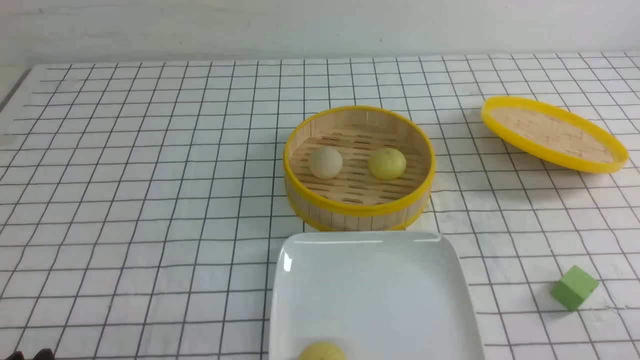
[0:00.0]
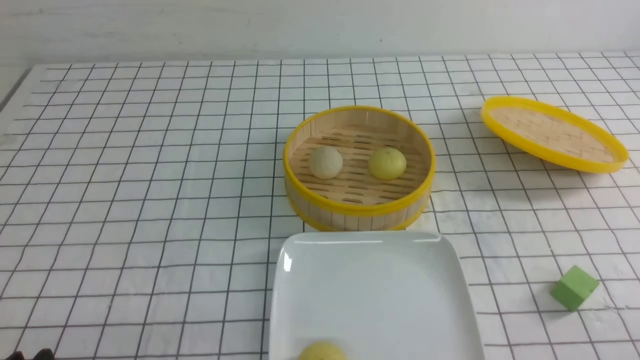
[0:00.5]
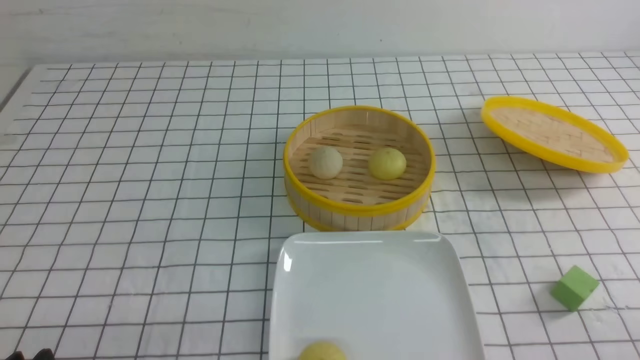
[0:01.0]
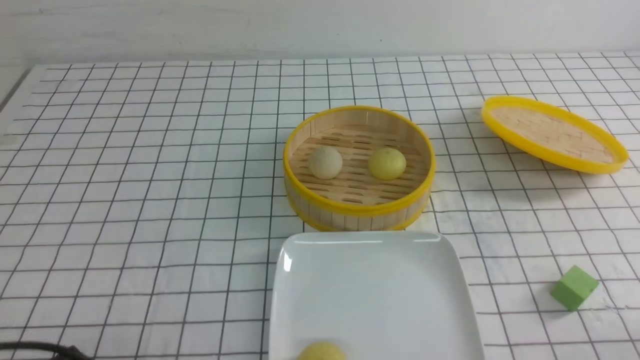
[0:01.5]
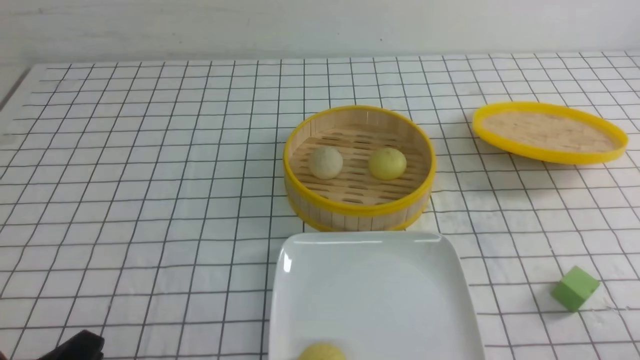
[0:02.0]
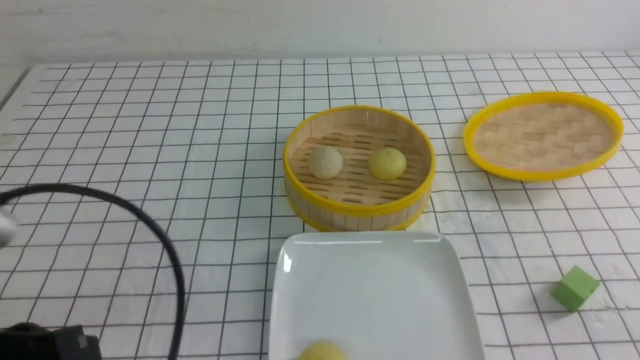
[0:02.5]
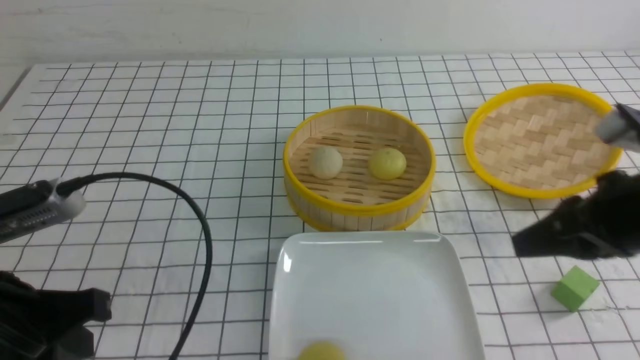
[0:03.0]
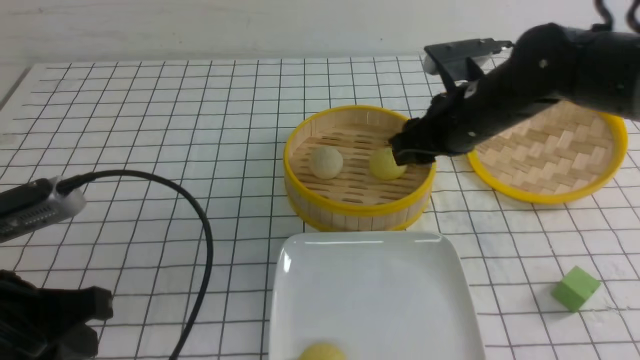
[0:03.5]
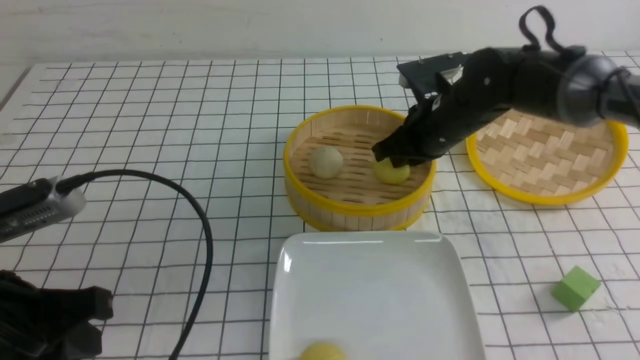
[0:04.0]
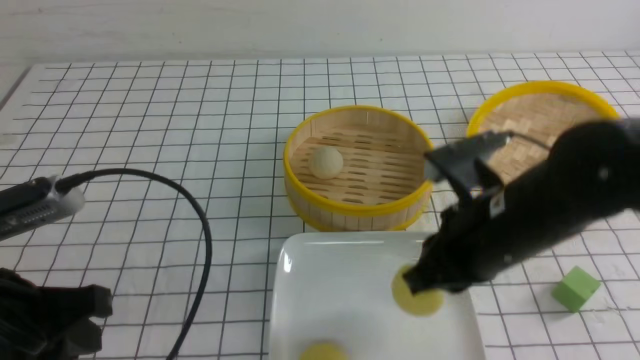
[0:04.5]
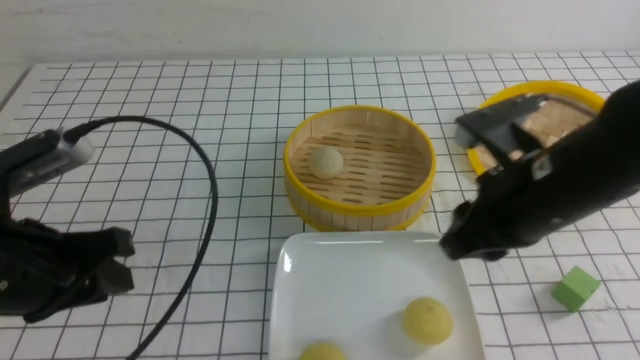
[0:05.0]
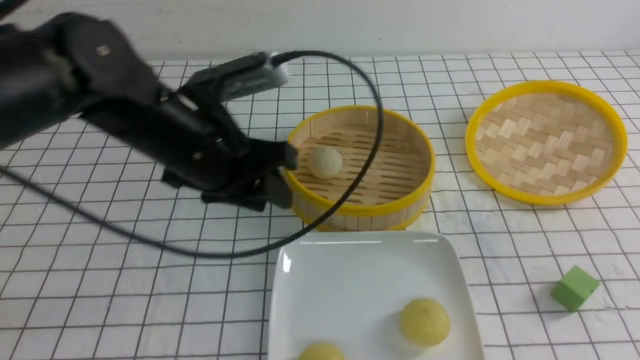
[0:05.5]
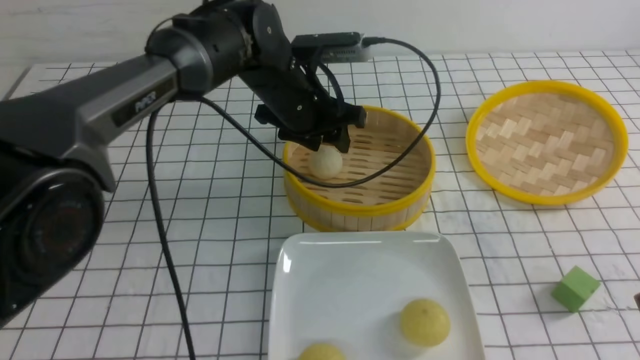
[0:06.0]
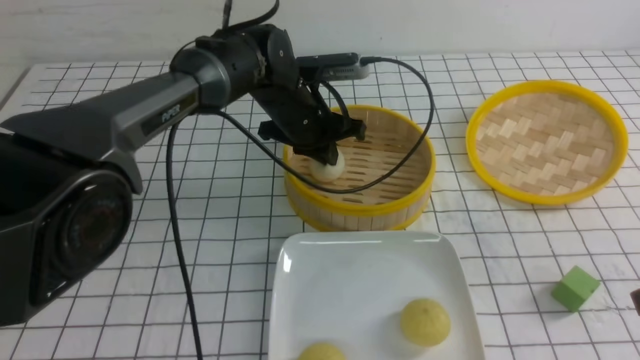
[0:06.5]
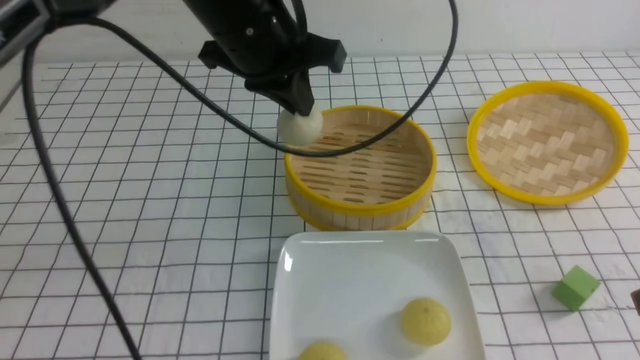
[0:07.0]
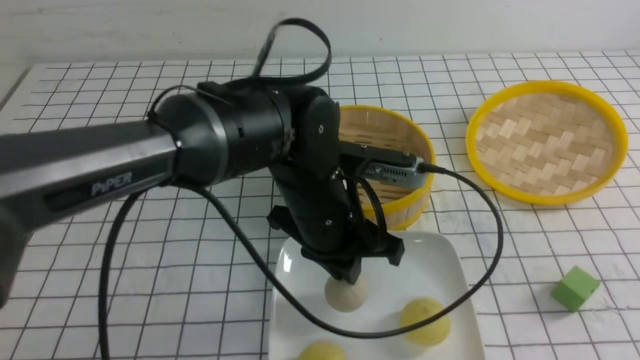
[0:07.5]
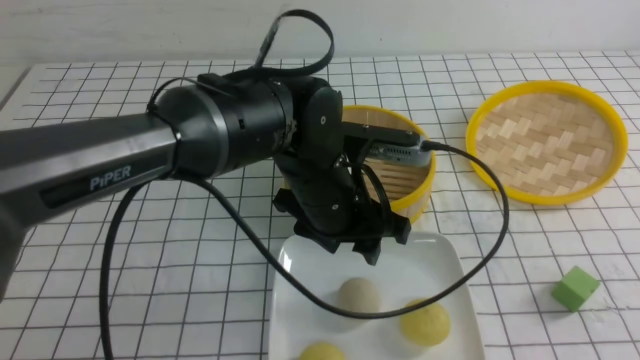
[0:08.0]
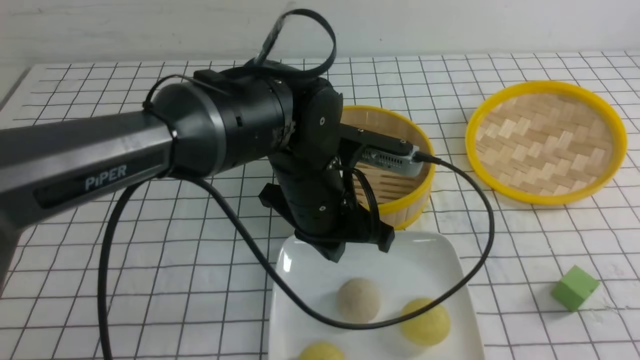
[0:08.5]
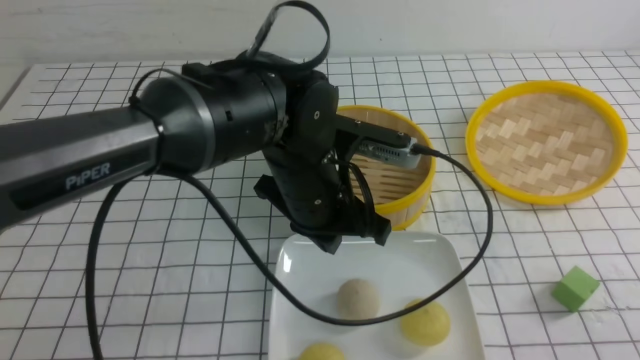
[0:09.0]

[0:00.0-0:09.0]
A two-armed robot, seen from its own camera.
Step, 0:00.0 to 0:03.5: use the right arm to grab the steamed stuffed bun that is closest to it.
Step, 0:04.0 to 0:04.5: use the right arm to put the steamed stuffed bun into the plate.
Step, 0:05.0 to 0:06.0: use the left arm to grab the steamed stuffed bun that is closest to it.
Step, 0:06.5 to 0:07.5: use the left arm to put the steamed stuffed bun into the plate.
0:00.0 to 0:02.0: The left gripper ends up roughly 5 cm from where it was.
0:02.0 to 0:04.5: The right gripper goes about 25 cm forward and to the left, and closes and opens again. The left gripper moves forward and upward, some 10 cm.
0:04.5 to 0:07.0: The left gripper travels forward and to the right by some 25 cm, and closes up; the right gripper travels to the right and backward by about 20 cm, and closes up.
0:07.0 to 0:09.0: The left gripper travels downward and backward by about 10 cm, and opens, then closes again; the right gripper heads backward and downward, covering some 10 cm.

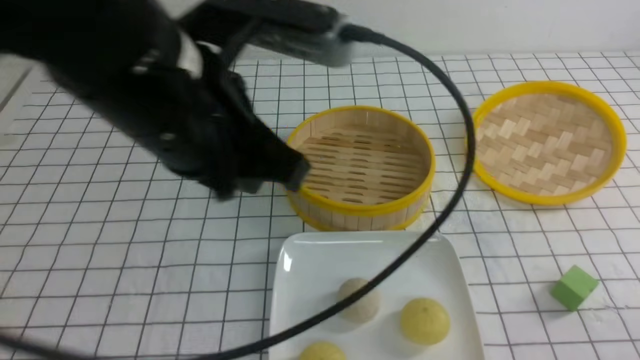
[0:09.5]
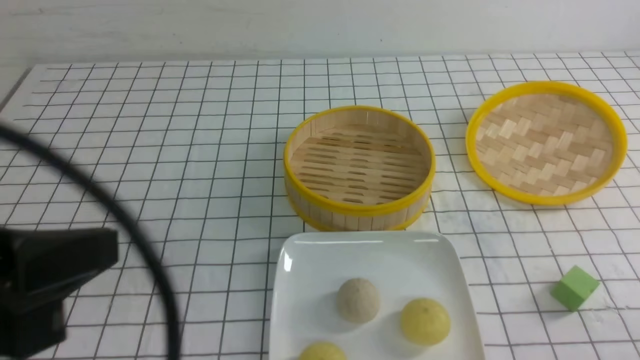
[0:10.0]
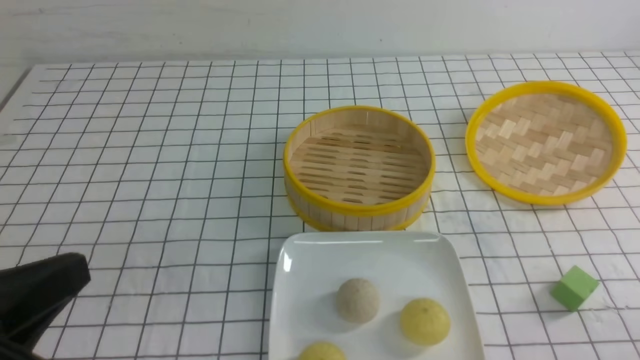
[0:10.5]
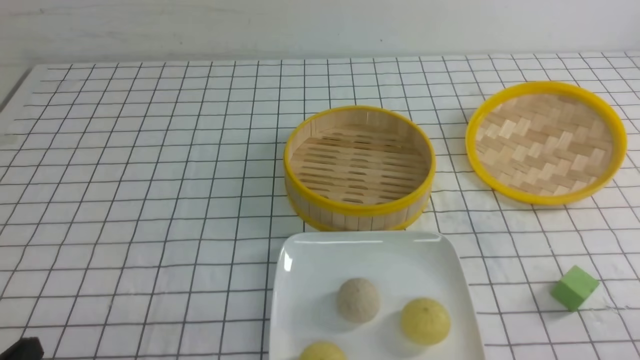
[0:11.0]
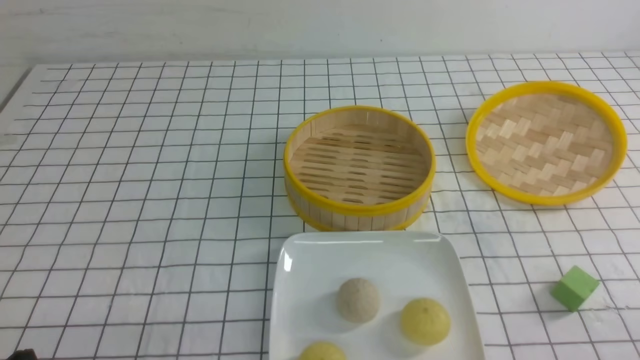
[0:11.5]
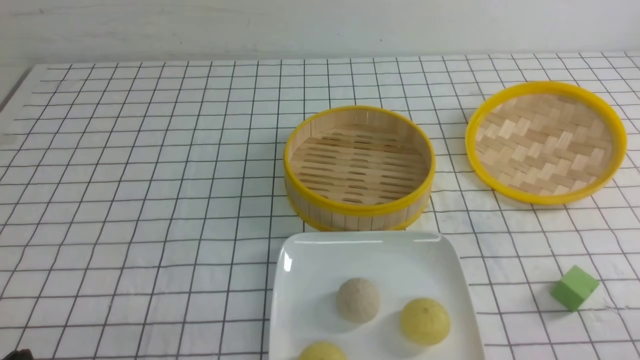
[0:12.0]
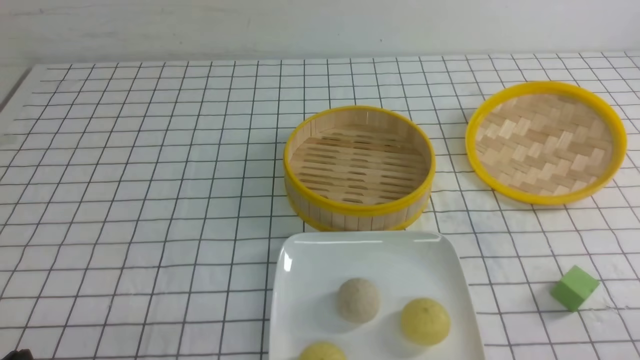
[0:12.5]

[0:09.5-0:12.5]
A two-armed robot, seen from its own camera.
0:09.5 to 0:11.0: The left gripper shifts some 30 cm downward, to the left and backward.

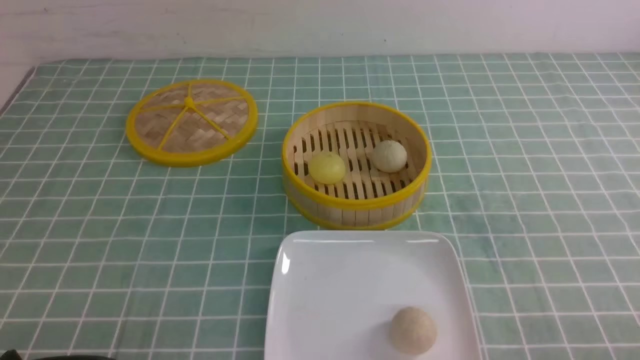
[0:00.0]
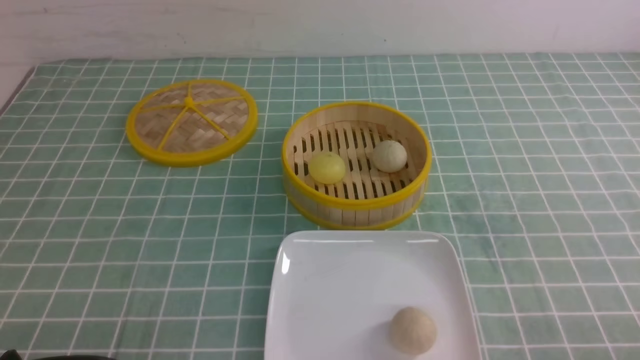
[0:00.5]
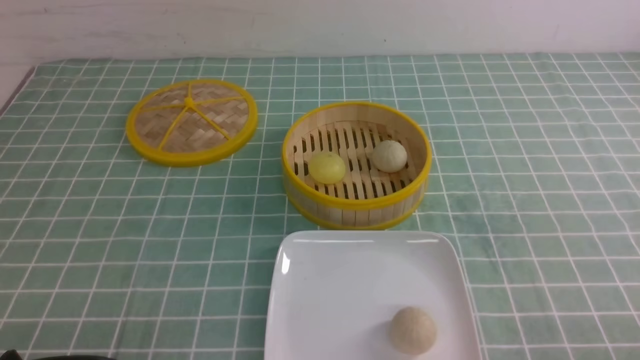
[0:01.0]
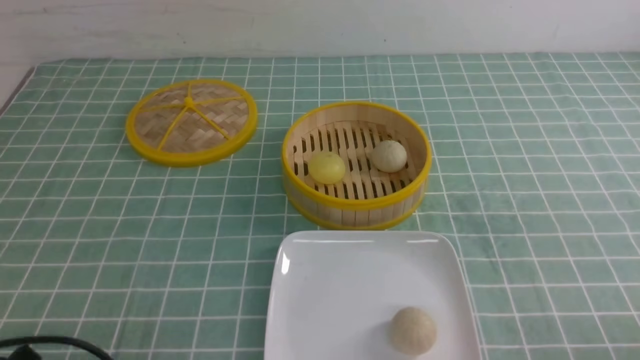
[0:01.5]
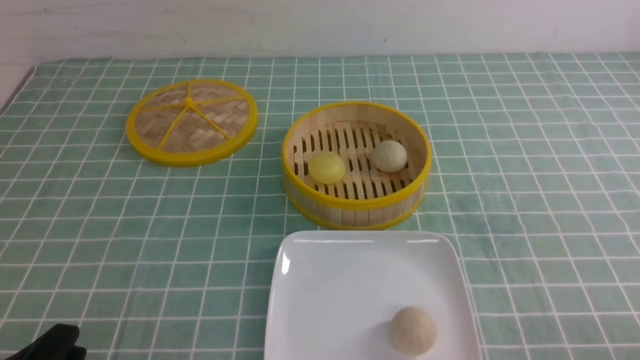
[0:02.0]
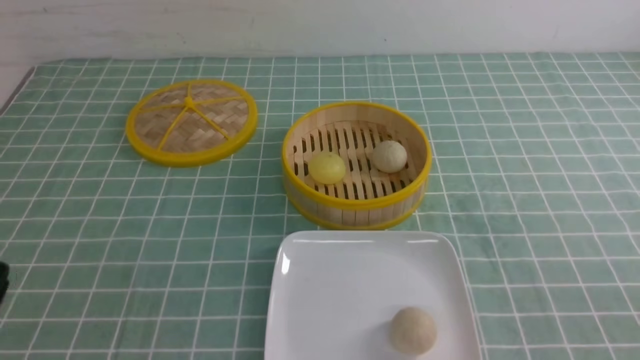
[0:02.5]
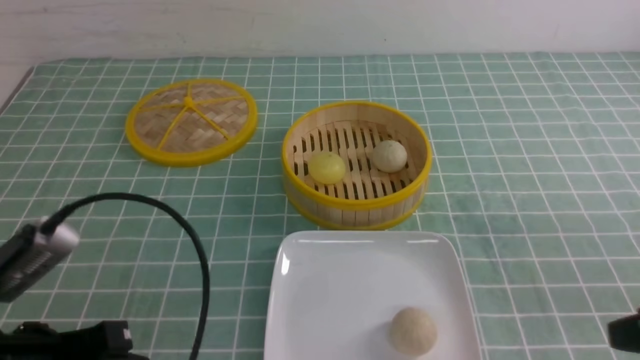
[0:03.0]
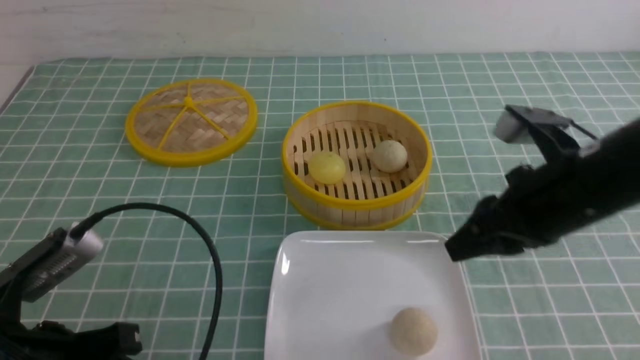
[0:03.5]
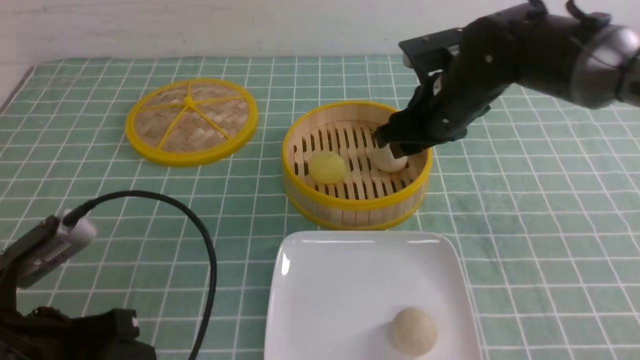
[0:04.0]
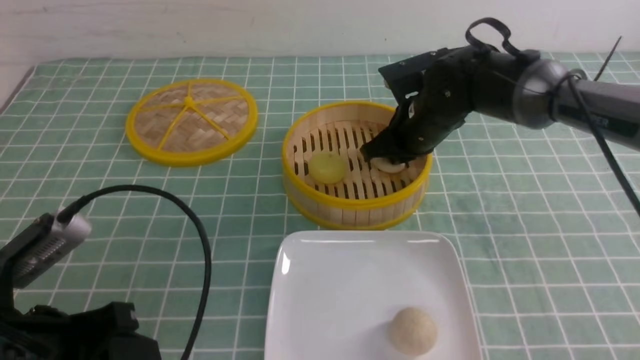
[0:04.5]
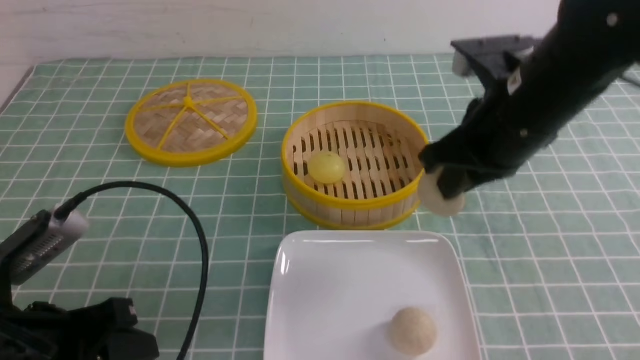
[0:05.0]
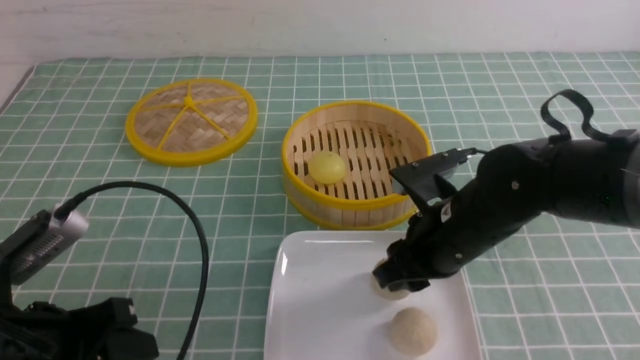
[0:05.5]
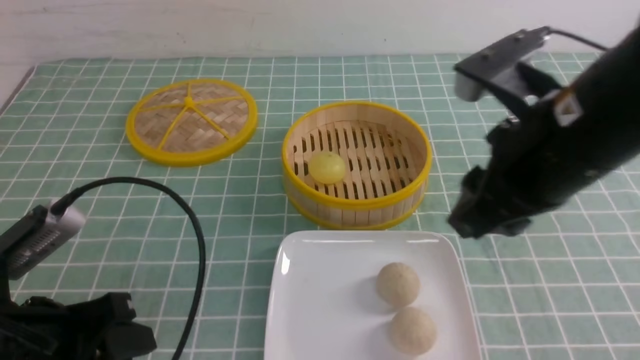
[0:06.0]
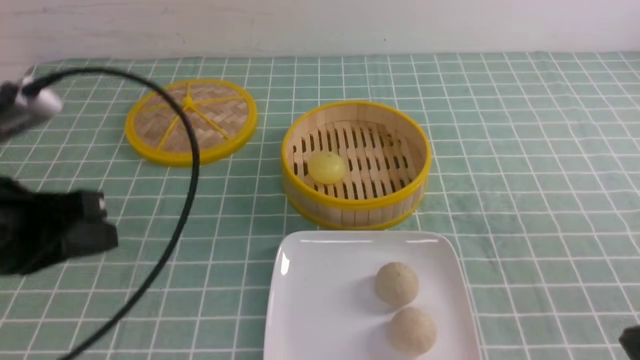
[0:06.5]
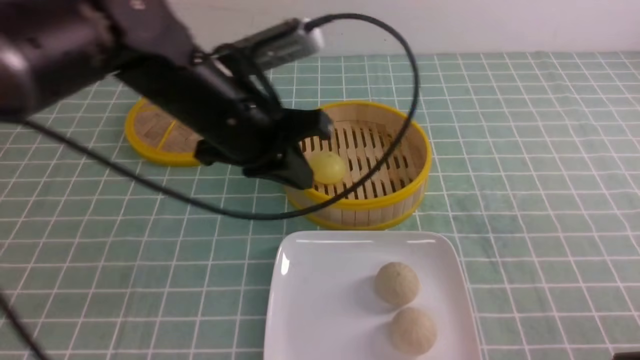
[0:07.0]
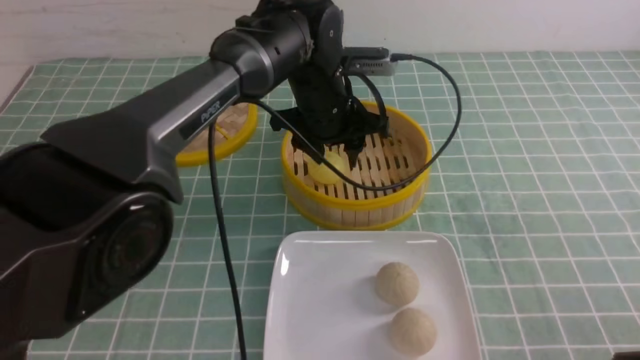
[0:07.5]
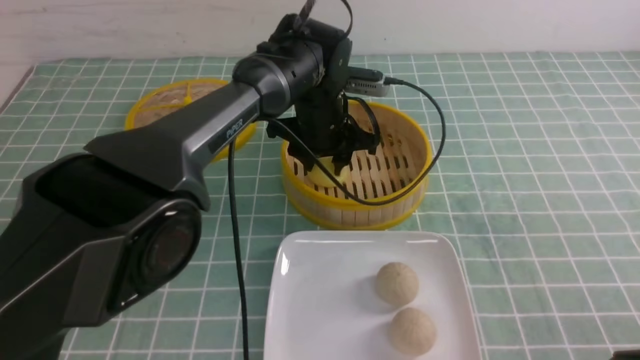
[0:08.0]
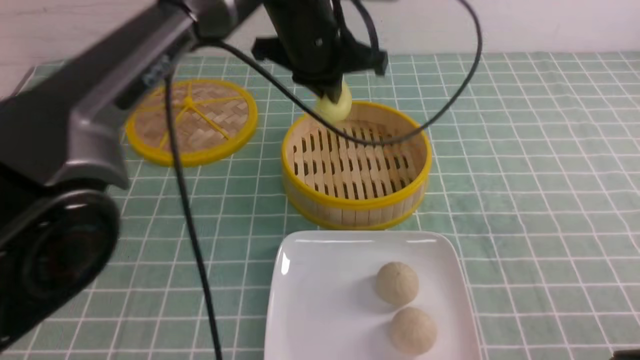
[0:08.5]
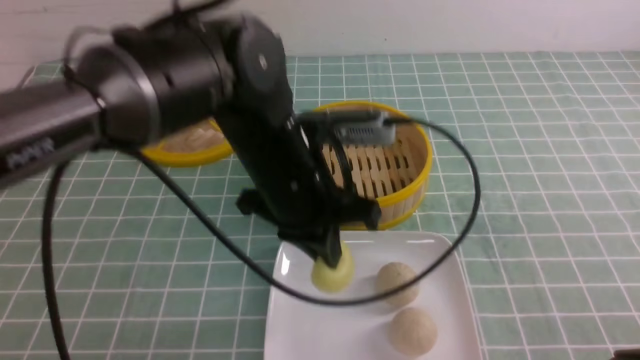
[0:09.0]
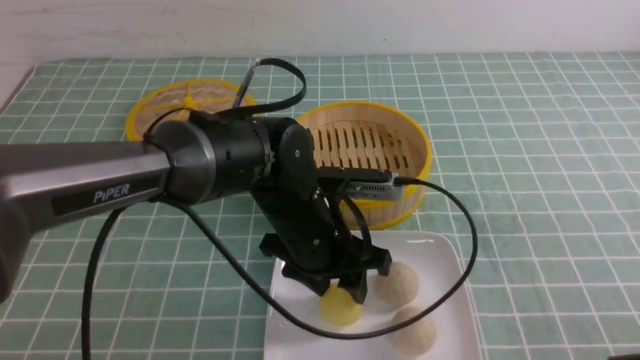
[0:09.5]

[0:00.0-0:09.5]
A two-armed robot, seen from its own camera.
Step, 0:00.0 to 0:04.5: use the right arm to grab the steamed stuffed bun that is closest to it.
Step, 0:05.0 to 0:05.5: use the right arm to put the steamed stuffed bun into the plate.
Step, 0:06.0 to 0:08.0: use the left arm to grab the steamed stuffed bun that is closest to it.
Step, 0:08.5 to 0:09.5: use the left arm to put the steamed stuffed bun into the plate.
0:02.0 to 0:04.0: The right gripper shifts roughly 40 cm forward and to the left, and closes, then reopens. The left gripper travels forward and upward by roughly 10 cm, and closes, then reopens.
0:04.0 to 0:05.5: The right gripper shifts approximately 15 cm backward, and closes, then reopens.
0:05.5 to 0:07.5: The left gripper heads forward and to the right, covering roughly 35 cm, and closes, then reopens; the right gripper heads backward and to the right, covering roughly 25 cm, and closes up.
0:07.5 to 0:09.5: The left gripper is displaced backward by about 15 cm, and closes, then reopens.
